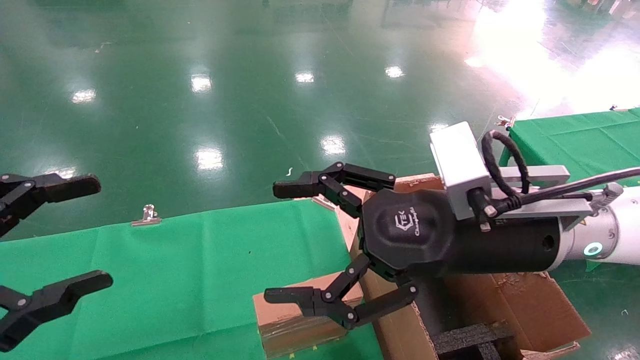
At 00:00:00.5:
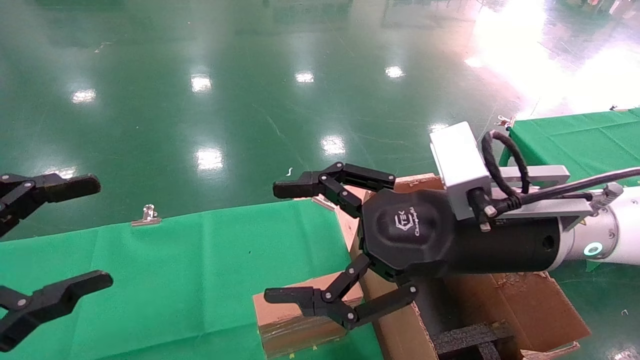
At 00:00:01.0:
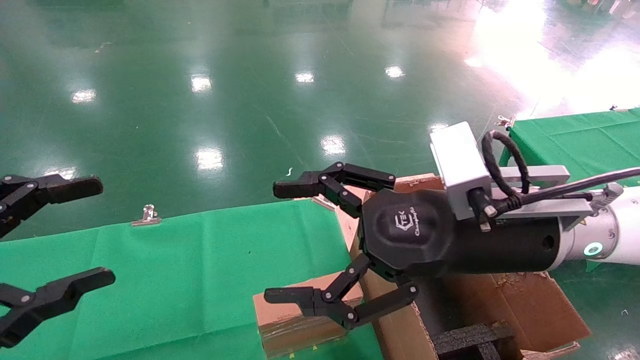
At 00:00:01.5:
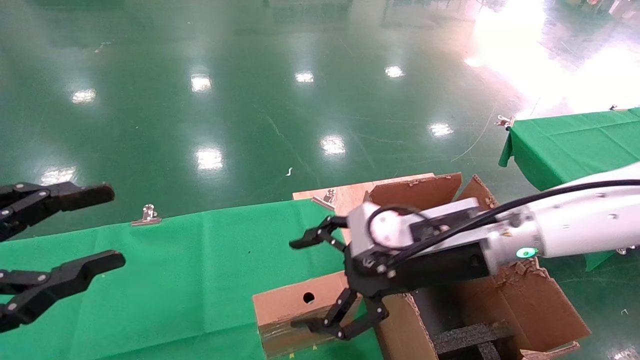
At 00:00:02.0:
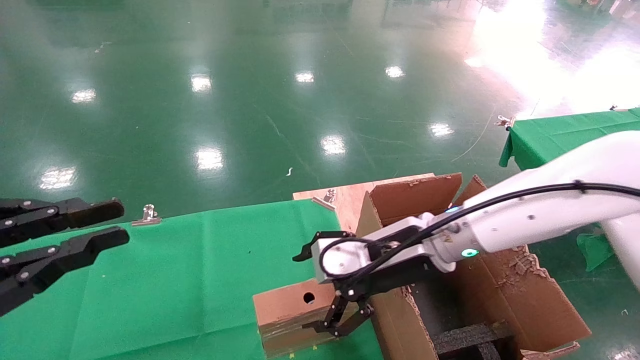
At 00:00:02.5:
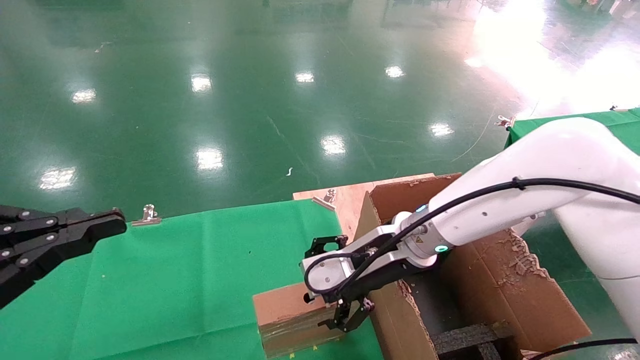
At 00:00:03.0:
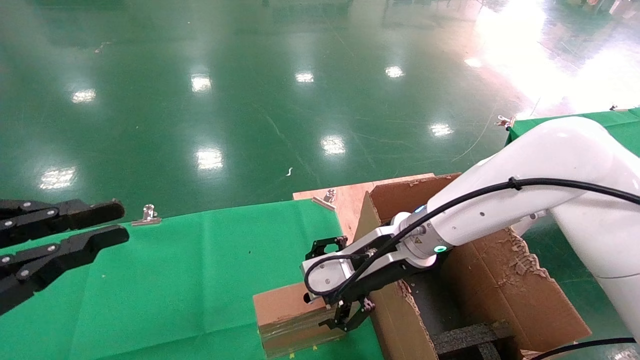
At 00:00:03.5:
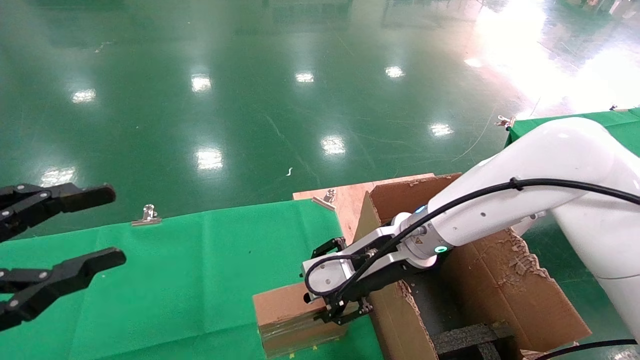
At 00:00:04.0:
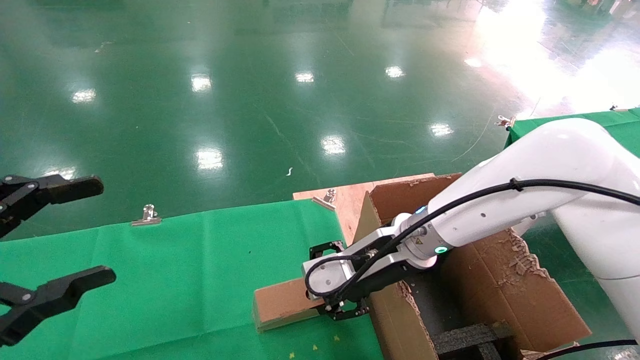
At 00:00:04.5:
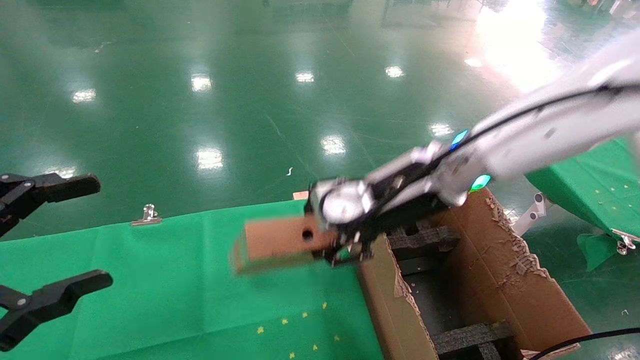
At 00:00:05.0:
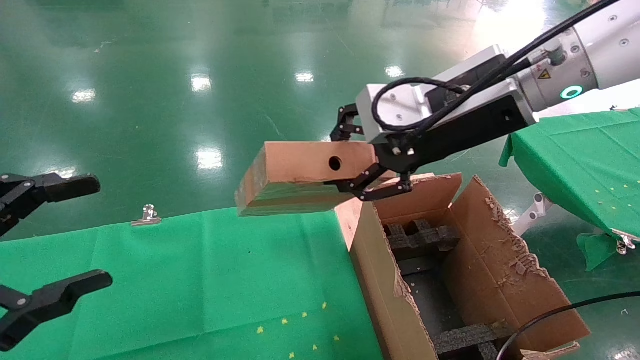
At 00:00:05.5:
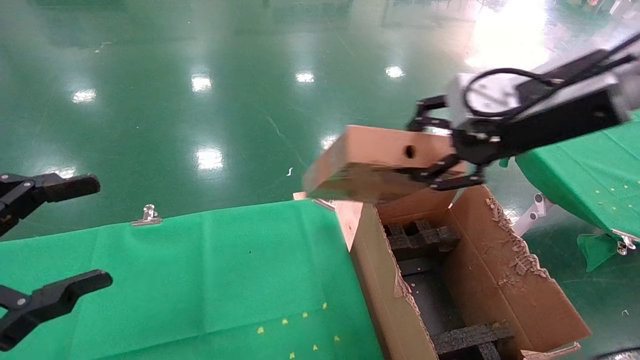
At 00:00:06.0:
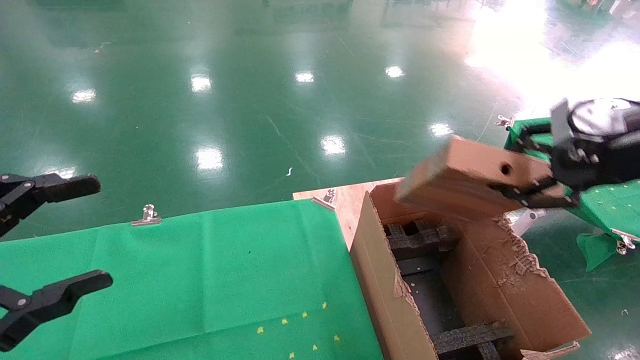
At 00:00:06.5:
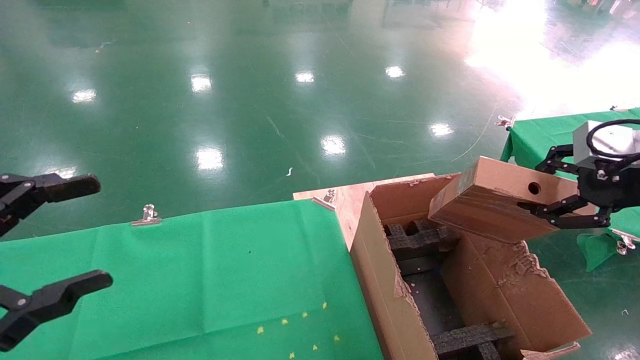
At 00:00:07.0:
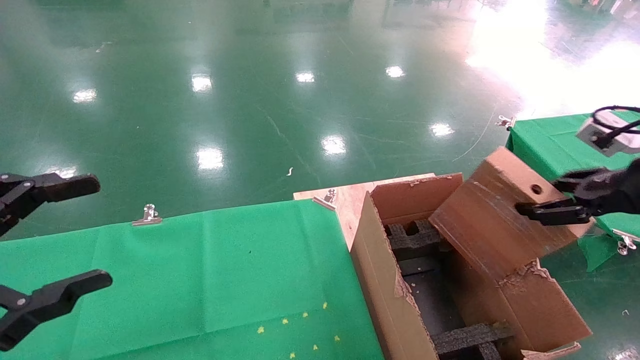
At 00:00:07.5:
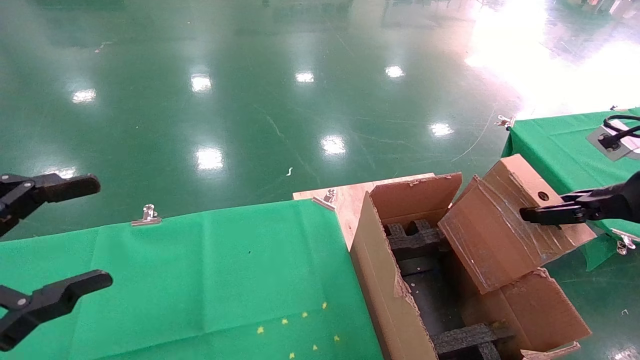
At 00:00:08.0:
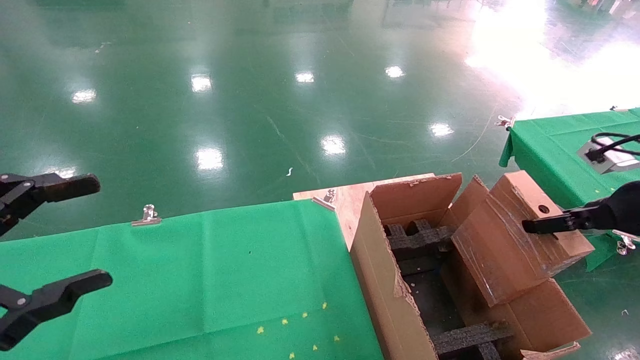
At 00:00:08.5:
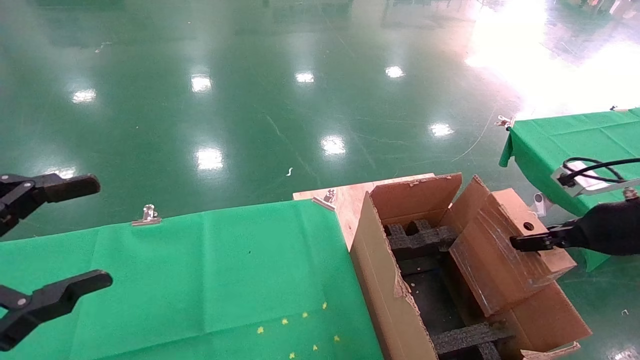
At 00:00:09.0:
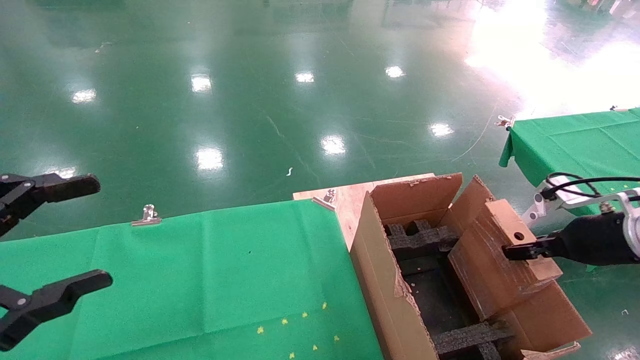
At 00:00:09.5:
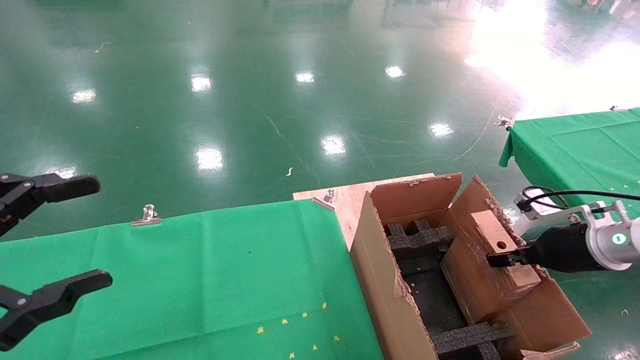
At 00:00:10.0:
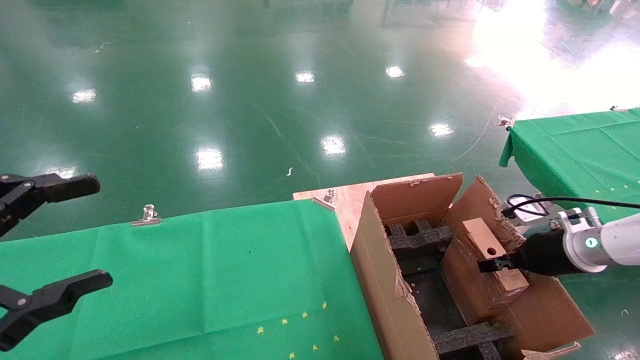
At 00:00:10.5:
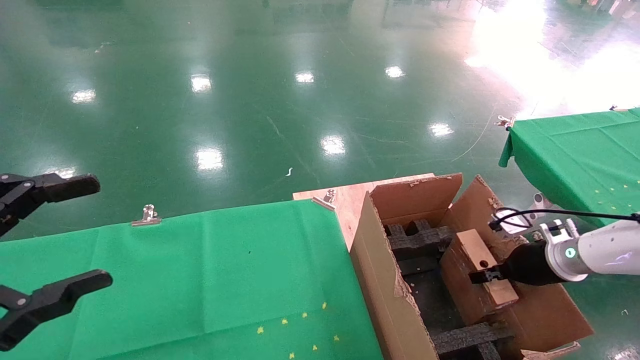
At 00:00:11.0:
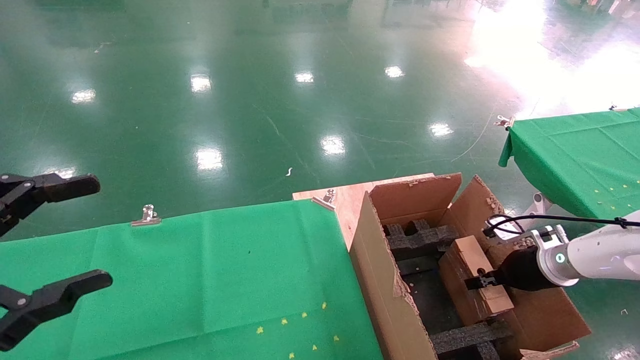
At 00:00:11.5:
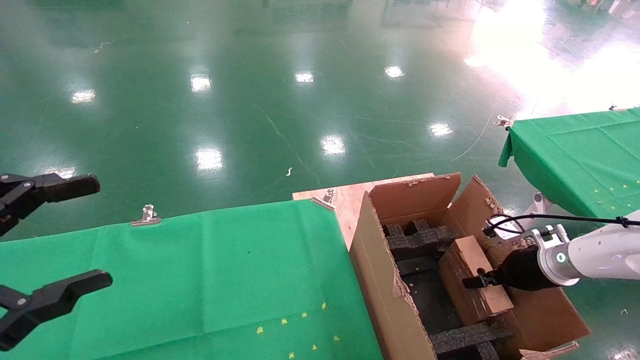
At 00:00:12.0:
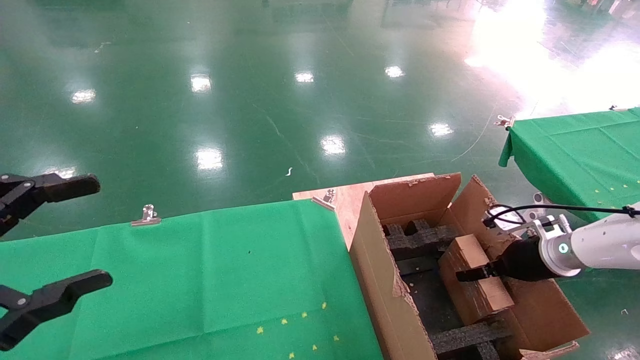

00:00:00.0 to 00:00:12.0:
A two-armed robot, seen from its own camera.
Task of the whole recording: using a robotic arm to pick up a cardboard box and palace it the carton.
Step, 00:00:01.5 to 00:00:03.5: Pick up the mouse and the power cord paper box.
00:00:00.0 to 00:00:02.0: The left gripper closes its fingers; the right gripper is displaced forward and downward by about 10 cm.
00:00:02.0 to 00:00:04.0: The left gripper opens up, while the right gripper closes.
00:00:04.0 to 00:00:06.0: The right gripper shifts approximately 30 cm to the right, upward and backward.
00:00:06.0 to 00:00:08.0: The right gripper heads downward and to the right, covering some 10 cm.
00:00:08.0 to 00:00:10.0: The right gripper heads downward and forward, covering approximately 15 cm.
00:00:10.0 to 00:00:12.0: The right gripper opens up.

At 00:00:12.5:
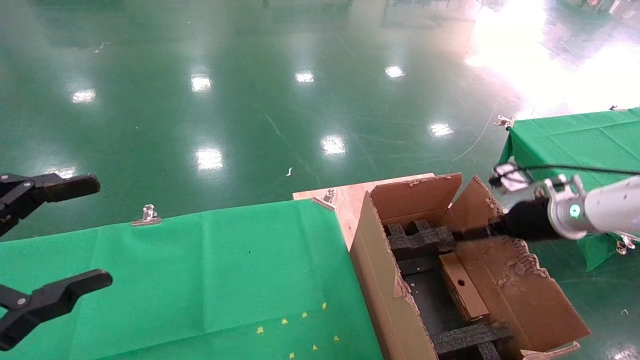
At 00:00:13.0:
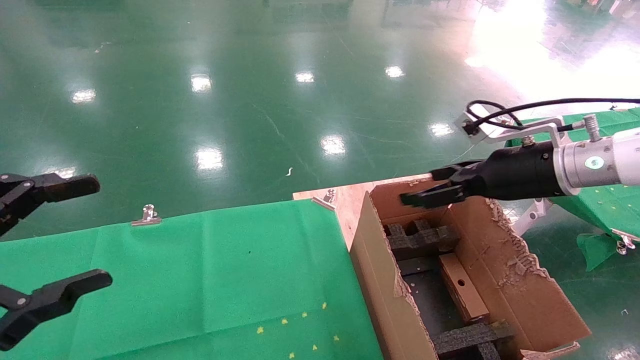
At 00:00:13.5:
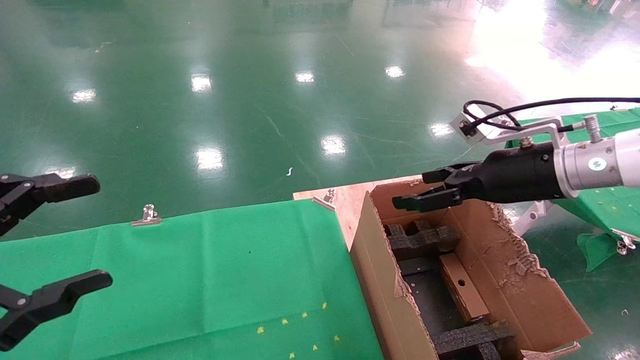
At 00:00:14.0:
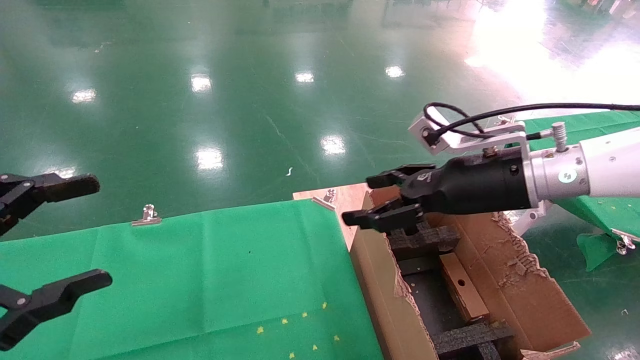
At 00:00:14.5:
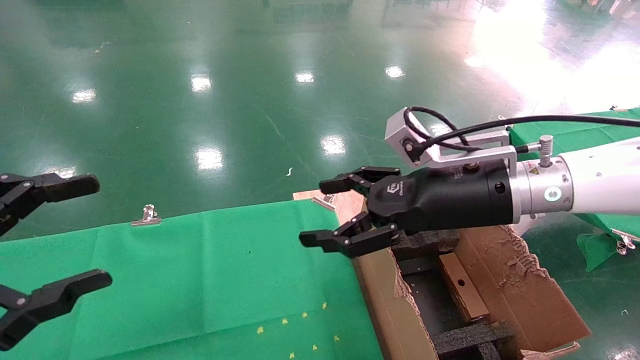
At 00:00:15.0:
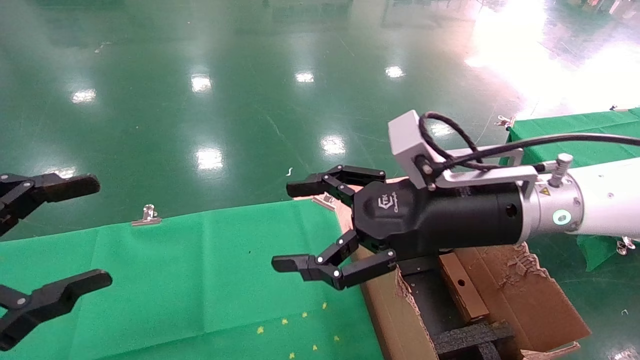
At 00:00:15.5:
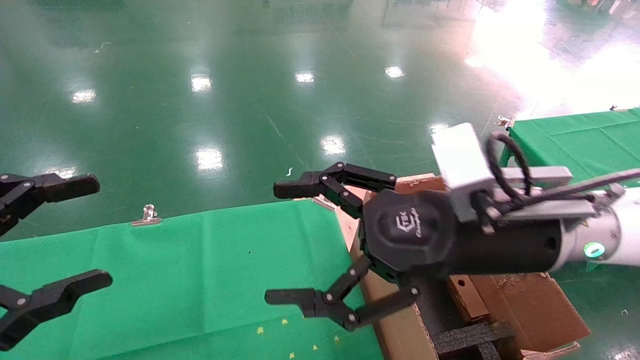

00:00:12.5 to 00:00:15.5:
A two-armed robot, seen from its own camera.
Task of the whole recording: using a robotic arm to pick up a cardboard box and palace it the carton.
00:00:12.5 to 00:00:14.0: The right gripper is displaced to the left and upward by about 20 cm.
00:00:14.0 to 00:00:15.5: The right gripper goes some 10 cm backward and to the left.
